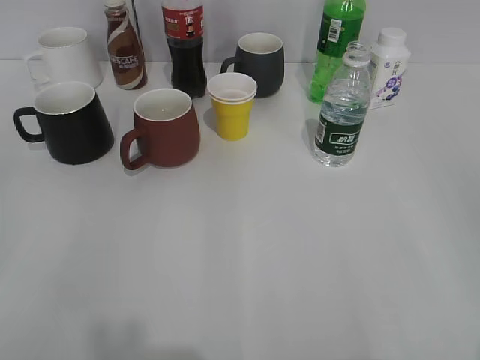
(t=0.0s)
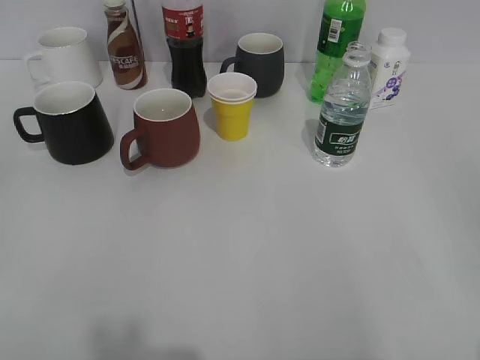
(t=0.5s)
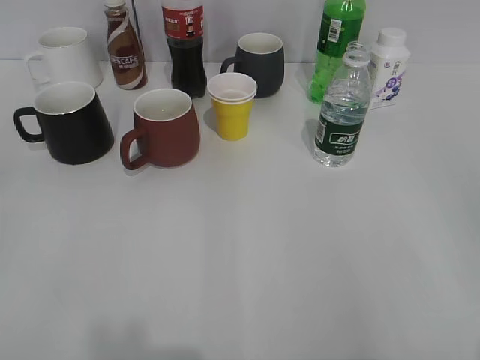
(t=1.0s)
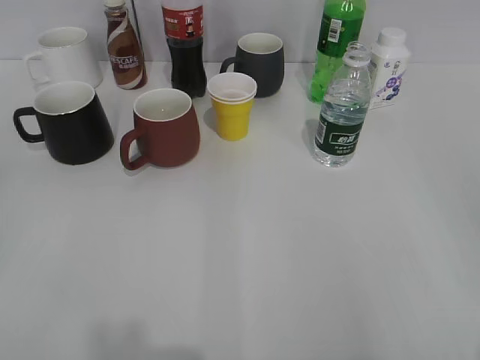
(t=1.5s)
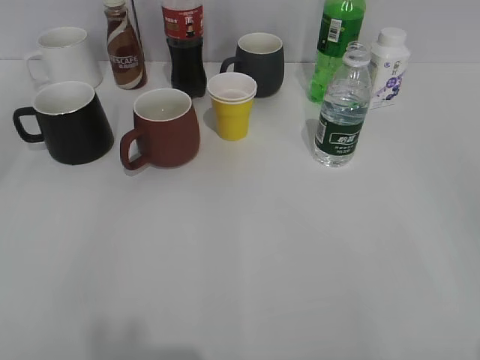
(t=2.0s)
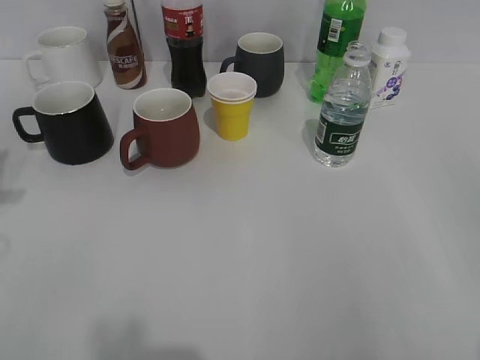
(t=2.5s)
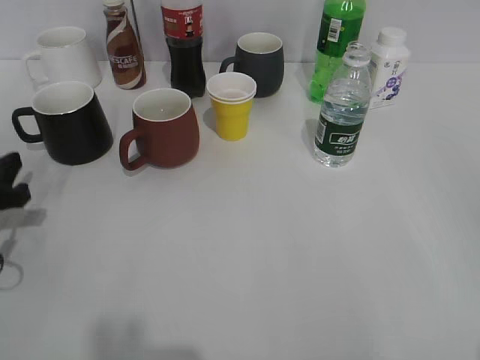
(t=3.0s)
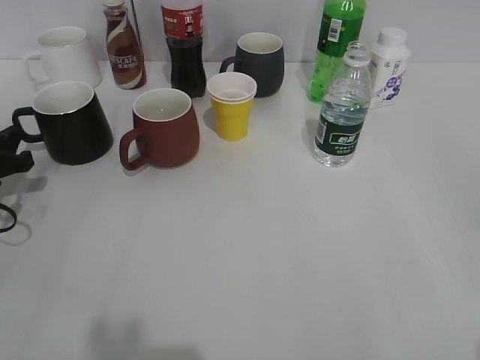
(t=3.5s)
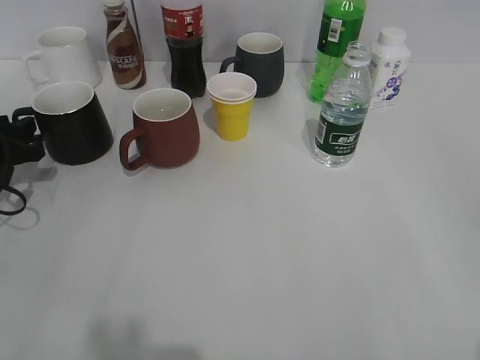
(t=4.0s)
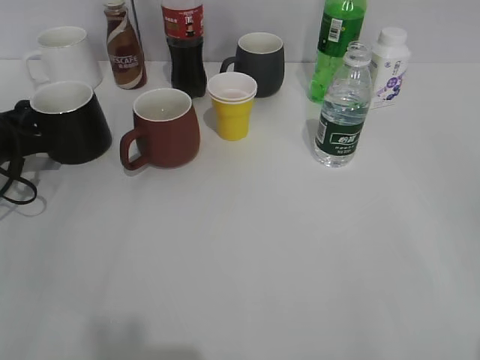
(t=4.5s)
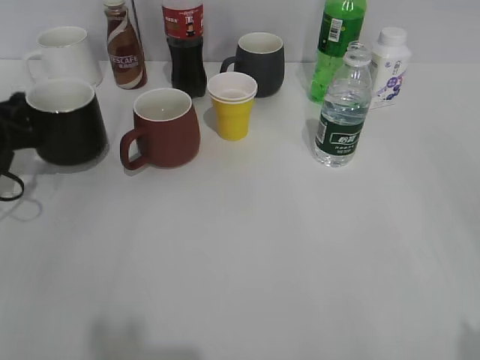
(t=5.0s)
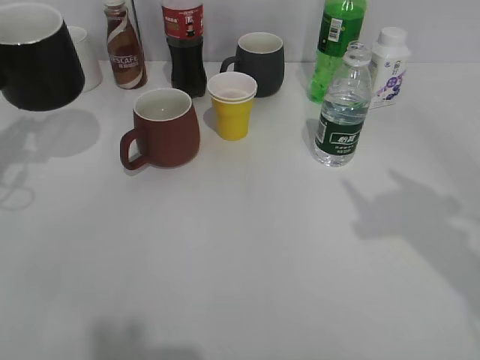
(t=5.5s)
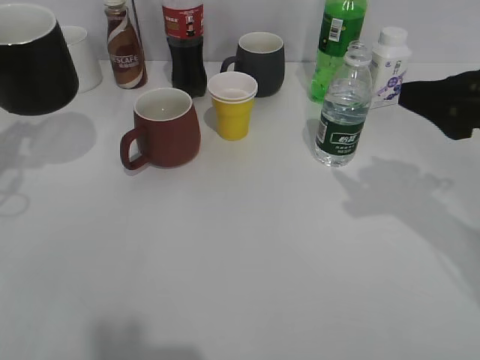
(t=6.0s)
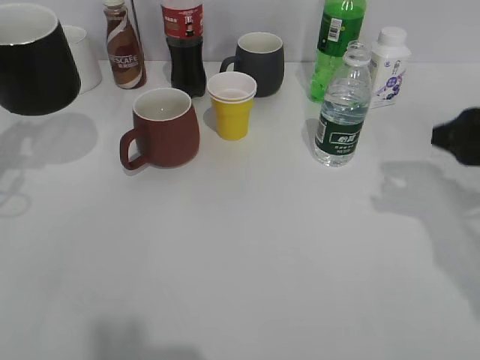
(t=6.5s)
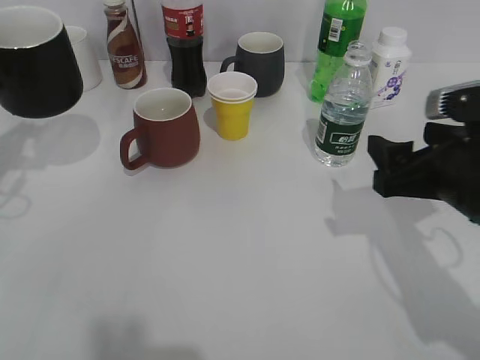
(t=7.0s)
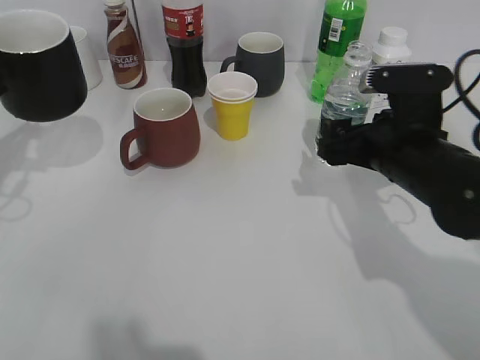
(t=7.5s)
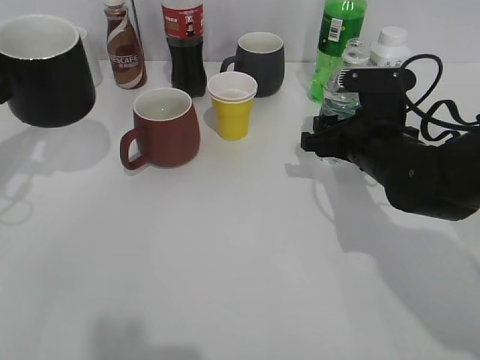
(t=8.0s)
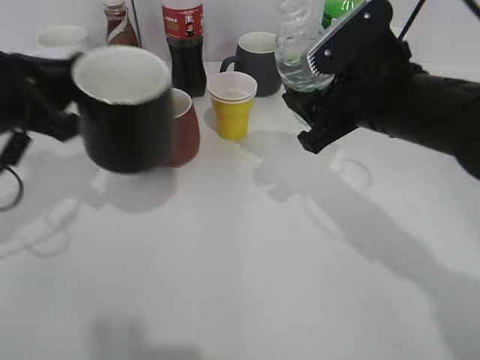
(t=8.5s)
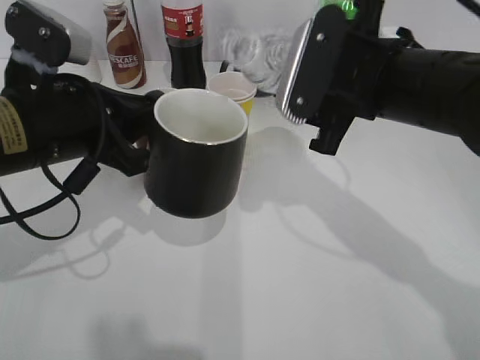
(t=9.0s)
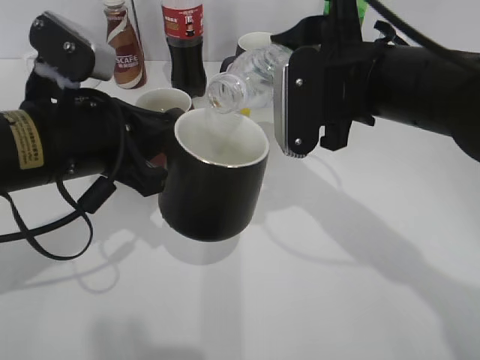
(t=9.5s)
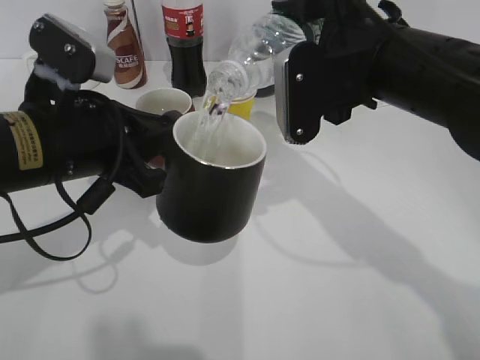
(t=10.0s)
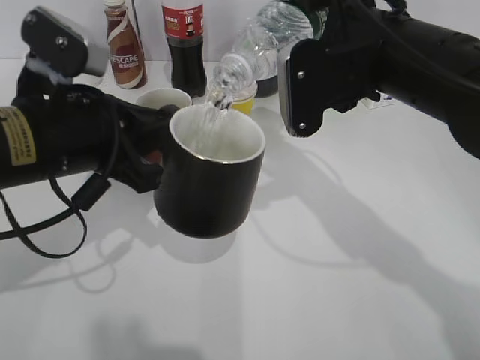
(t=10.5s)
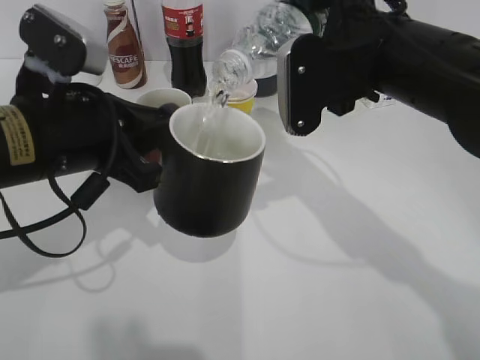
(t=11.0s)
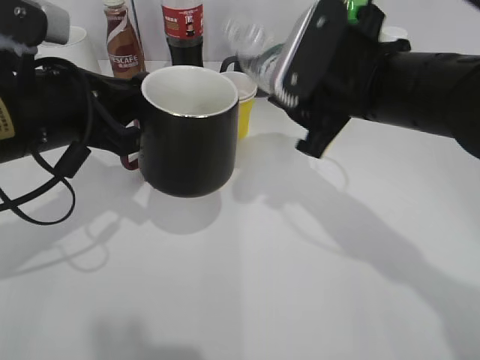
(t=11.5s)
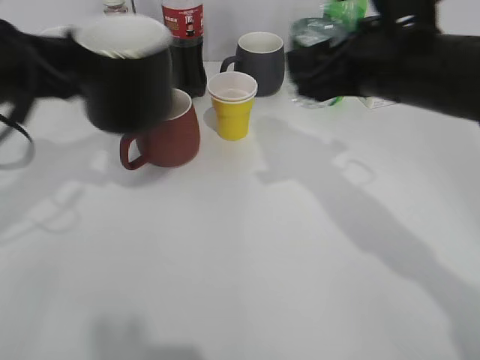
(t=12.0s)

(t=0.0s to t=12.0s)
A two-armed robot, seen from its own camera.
Step, t=2.0s - t=4.0s: Grasp the black cup with left gripper.
Step, t=6.0s - t=7.5s: Grasp the bottle with water with right gripper.
Step, t=8.0s - t=11.0s: Pour the water from bottle to cup with right gripper.
t=2.0s - t=4.0s: The left gripper shifts some 35 cm forward and downward.
t=4.0s - t=6.0s: The right gripper travels forward by roughly 25 cm. Meanwhile the left gripper goes approximately 10 cm upward, and closes.
t=6.0s - t=8.0s: The right gripper travels downward, to the left and forward by about 20 cm, and closes.
t=8.0s - t=10.0s: The left gripper travels to the right by about 15 cm. Meanwhile the right gripper shifts approximately 15 cm upward.
t=10.0s - t=12.0s: The left gripper goes roughly 5 cm to the left.

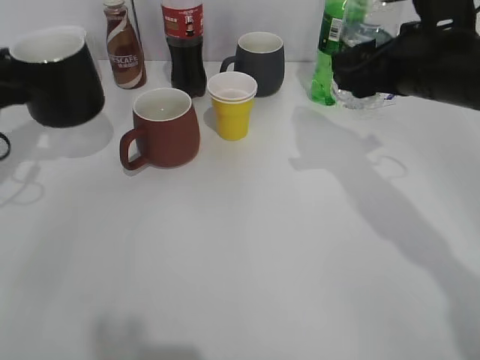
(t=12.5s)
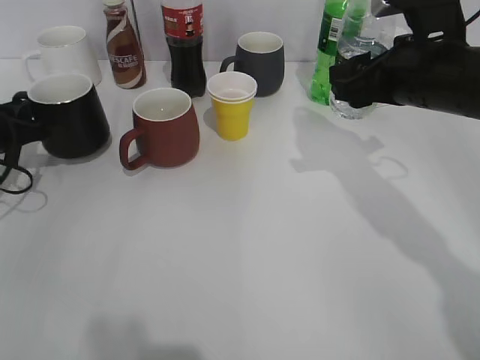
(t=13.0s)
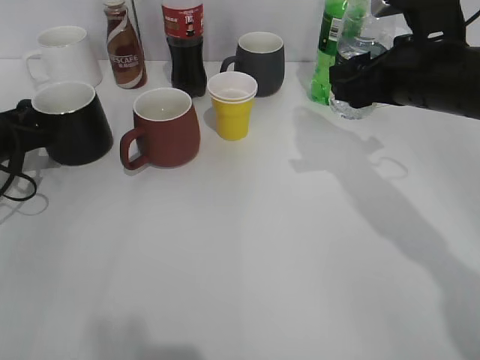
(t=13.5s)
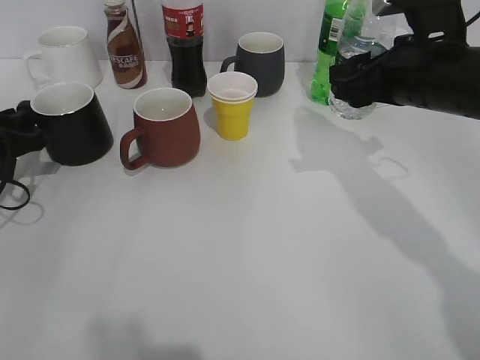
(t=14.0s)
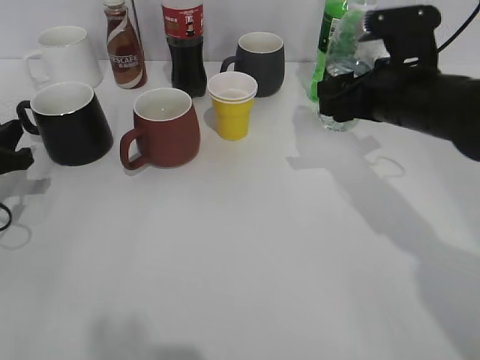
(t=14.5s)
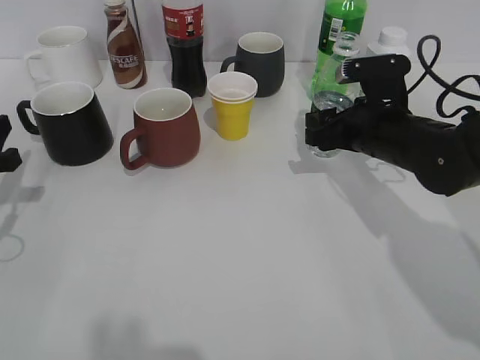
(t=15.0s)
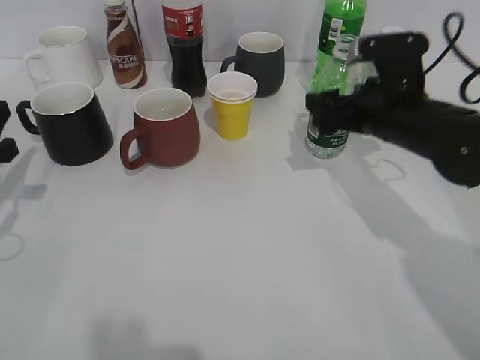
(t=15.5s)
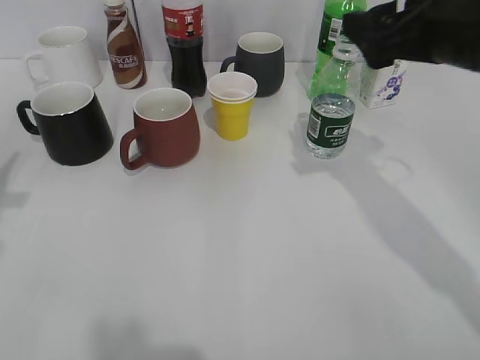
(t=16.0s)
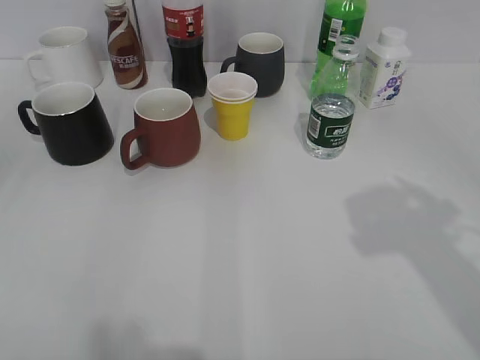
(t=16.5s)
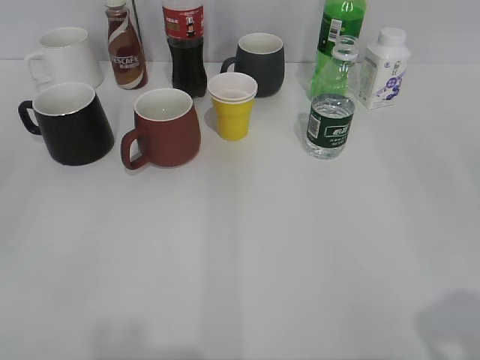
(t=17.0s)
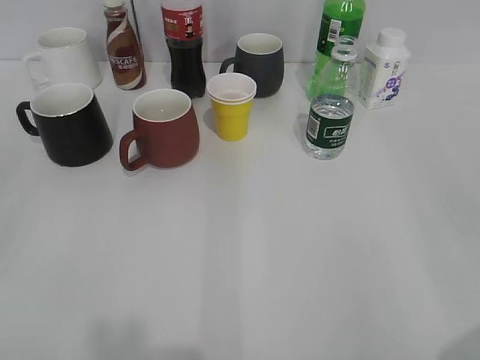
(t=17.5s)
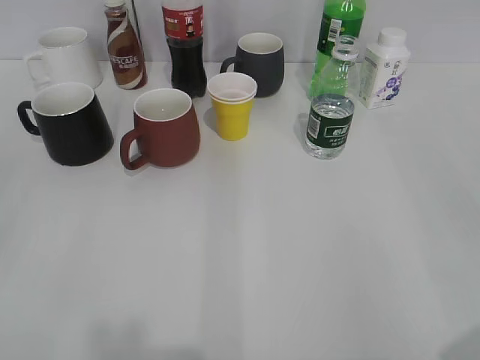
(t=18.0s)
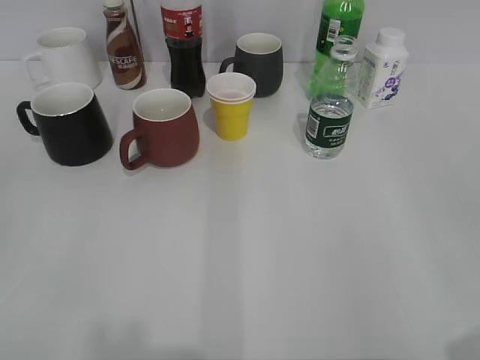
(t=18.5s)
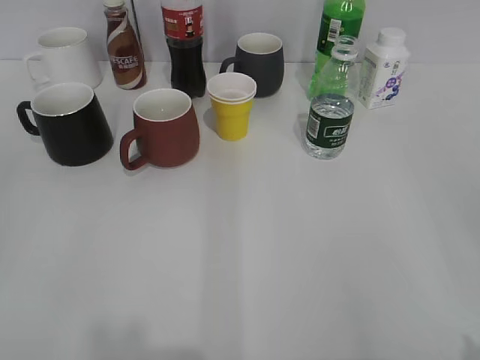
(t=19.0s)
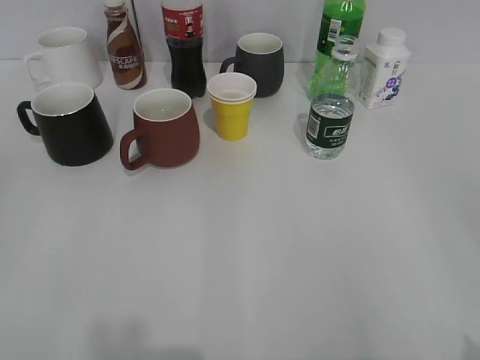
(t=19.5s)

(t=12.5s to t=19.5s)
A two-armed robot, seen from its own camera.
Step, t=12.5s - t=13.5s: Place the black cup on the table with left gripper.
Step, t=14.0s - t=15.5s: Place the water bottle on the table with right gripper.
t=12.5s - t=14.5s: The right gripper ends up roughly 5 cm from where it was. The left gripper heads downward, covering some 5 cm, and opens its fingers.
t=14.5s - t=16.0s: The left gripper goes about 15 cm upward and backward. The right gripper moves upward, some 10 cm, and opens up.
t=16.0s - t=17.5s: Both grippers travel together backward, about 25 cm. The left gripper opens up.

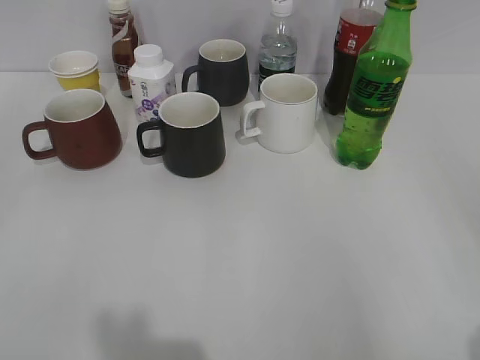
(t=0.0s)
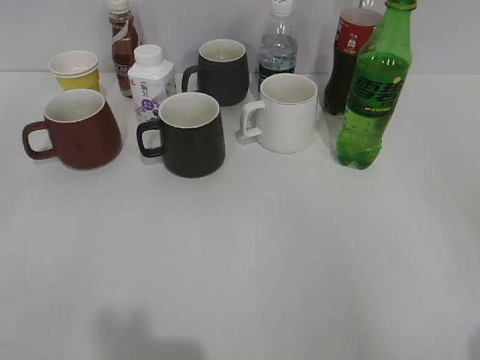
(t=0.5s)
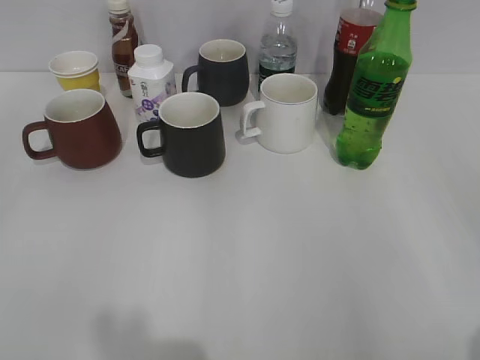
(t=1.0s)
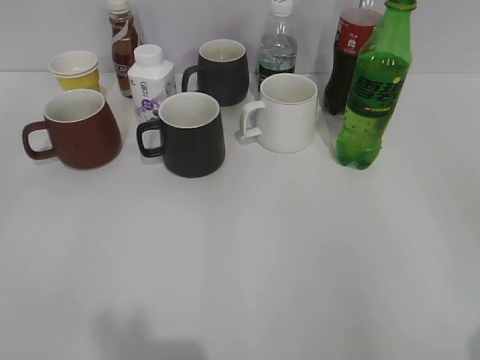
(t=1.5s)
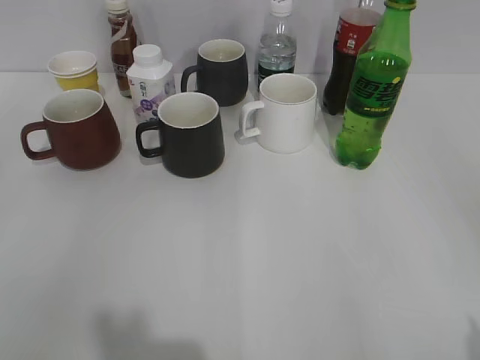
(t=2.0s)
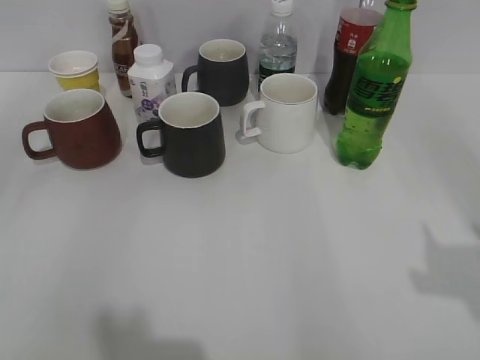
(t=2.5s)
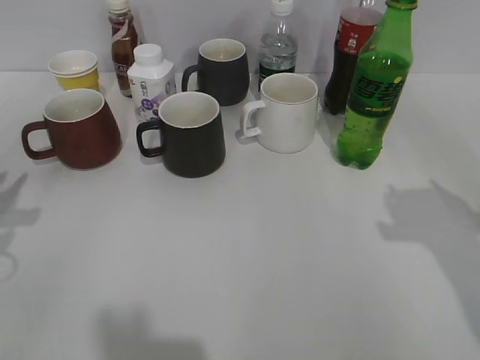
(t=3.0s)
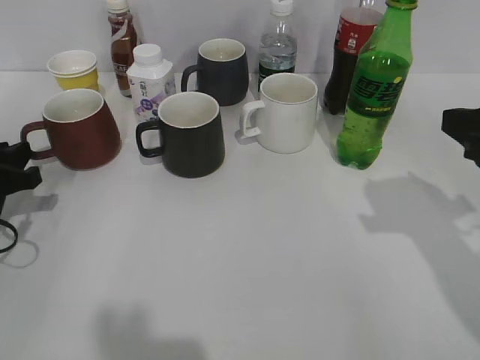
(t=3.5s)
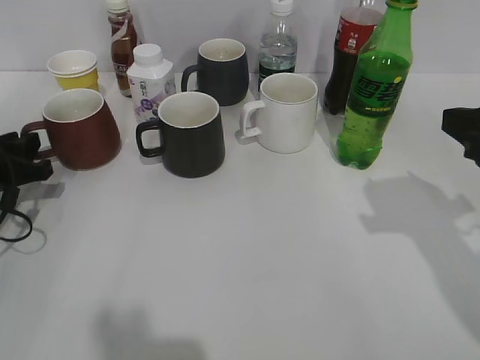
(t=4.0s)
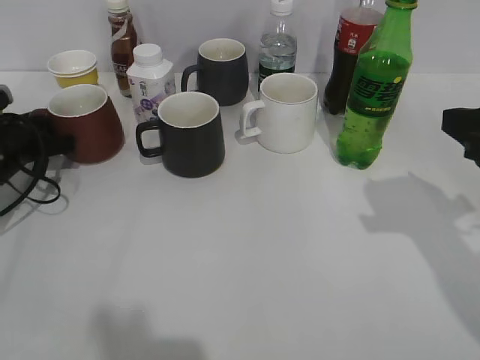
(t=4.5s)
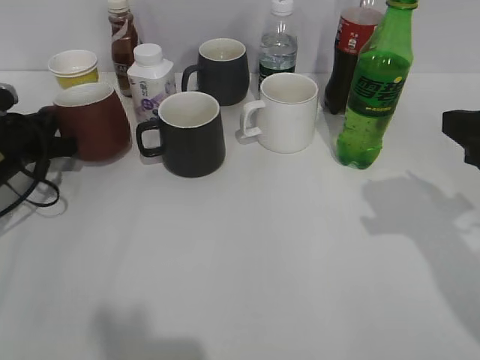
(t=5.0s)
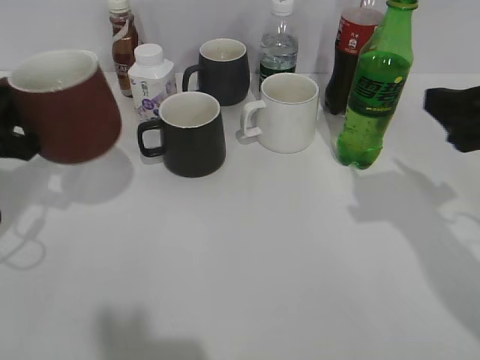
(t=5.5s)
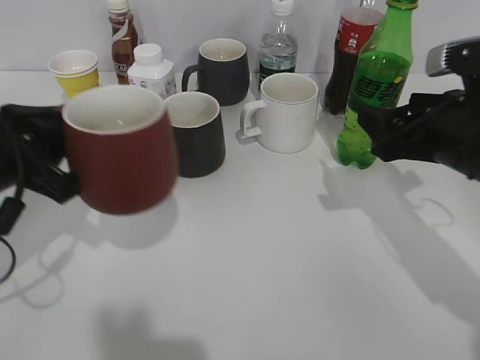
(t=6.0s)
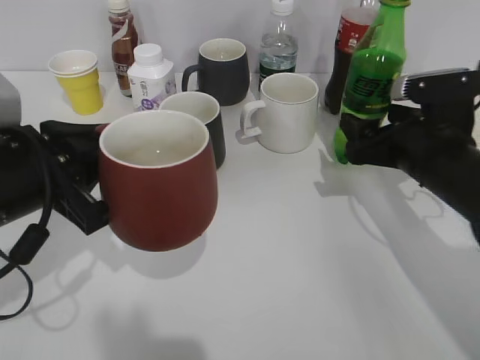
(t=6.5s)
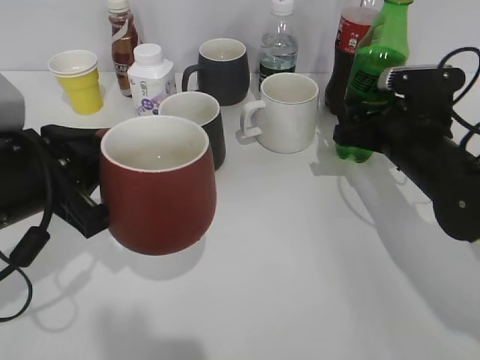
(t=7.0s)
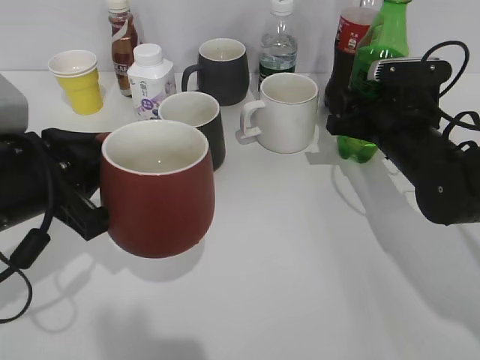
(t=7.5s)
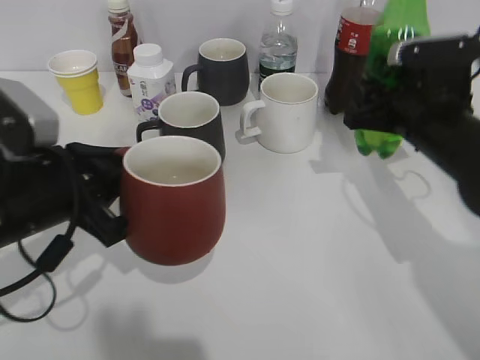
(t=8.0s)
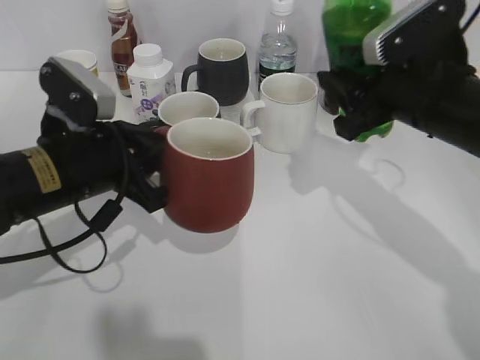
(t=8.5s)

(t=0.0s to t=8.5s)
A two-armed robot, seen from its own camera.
Step, t=2.0s - t=4.5s: Grasp the red cup with left gripper.
Step, t=5.5s - t=7.5s: Grasp the bottle with sprite with right gripper.
t=2.0s - t=4.0s: The right gripper heads forward, covering some 20 cm, while the left gripper heads forward and downward, covering approximately 35 cm.
t=4.0s - t=6.5s: The left gripper goes roughly 15 cm to the right, upward and backward, and closes up. The right gripper moves downward, forward and to the left, some 15 cm, and opens.
t=6.5s - t=8.5s: The right gripper travels upward by roughly 5 cm, and closes up, while the left gripper heads forward, covering approximately 5 cm.
